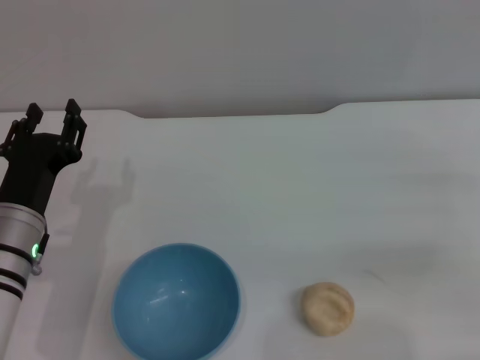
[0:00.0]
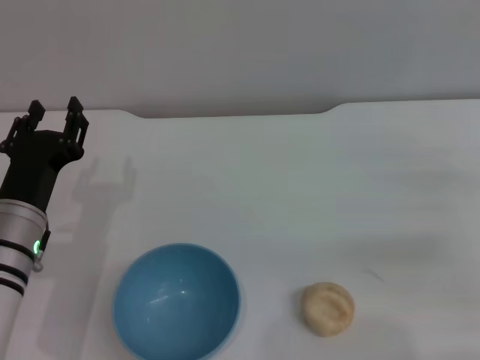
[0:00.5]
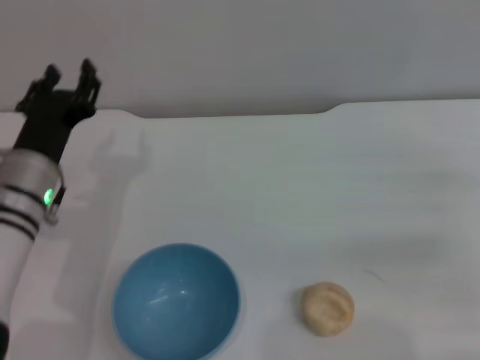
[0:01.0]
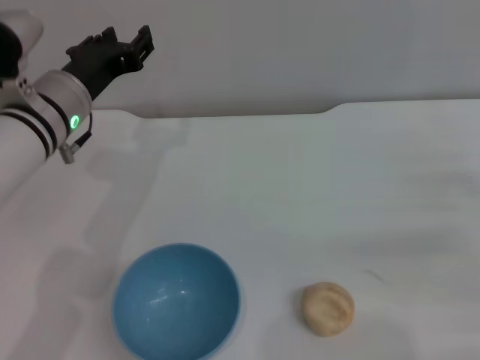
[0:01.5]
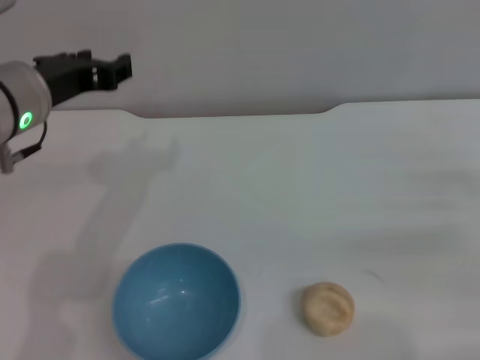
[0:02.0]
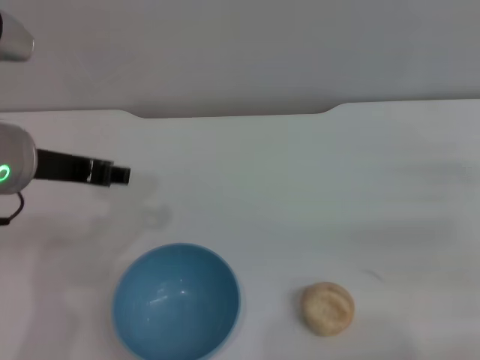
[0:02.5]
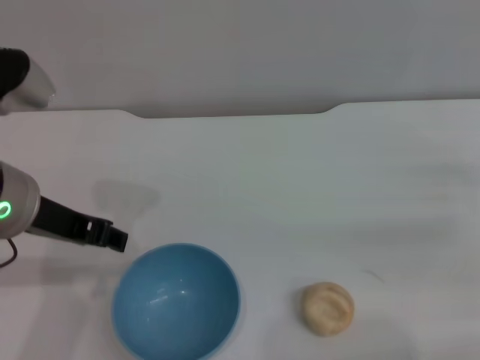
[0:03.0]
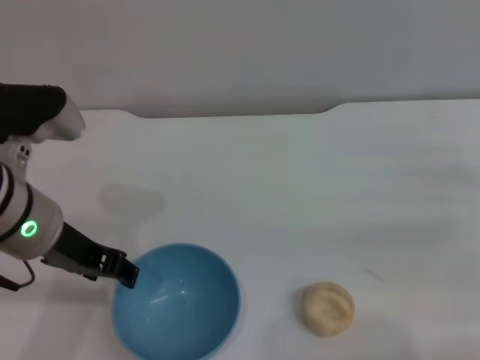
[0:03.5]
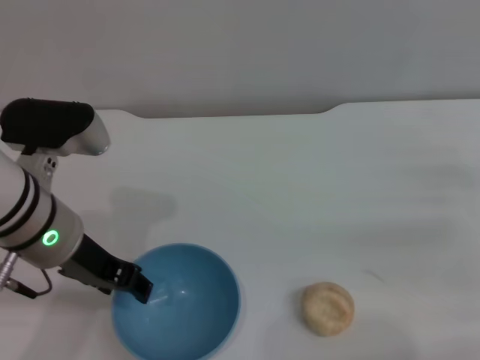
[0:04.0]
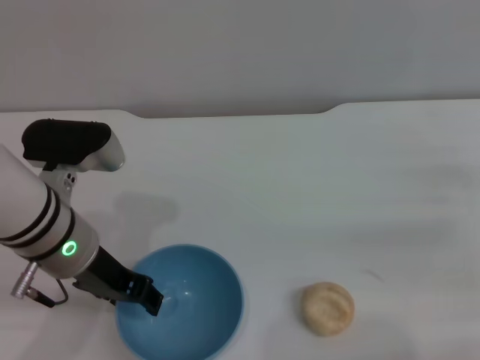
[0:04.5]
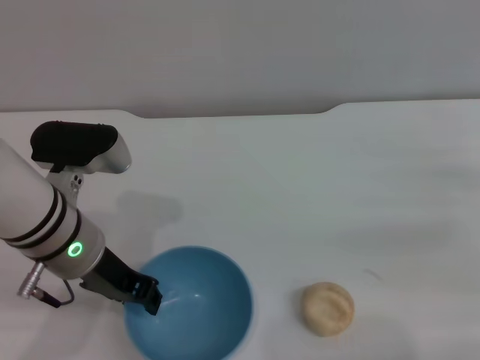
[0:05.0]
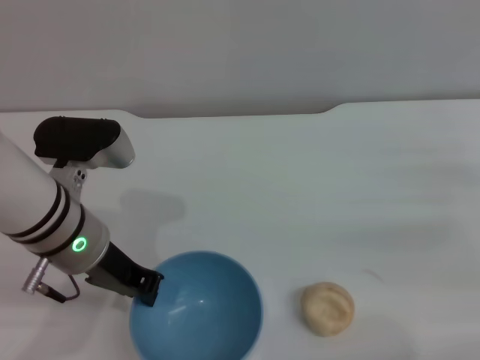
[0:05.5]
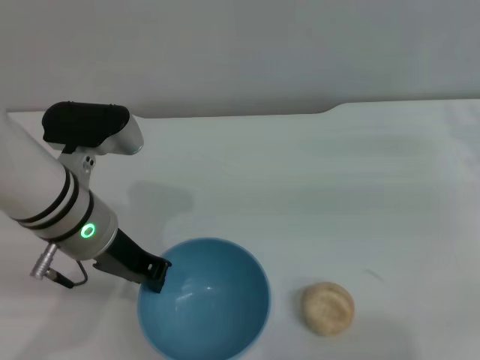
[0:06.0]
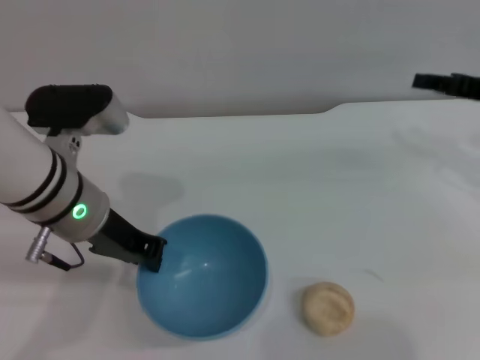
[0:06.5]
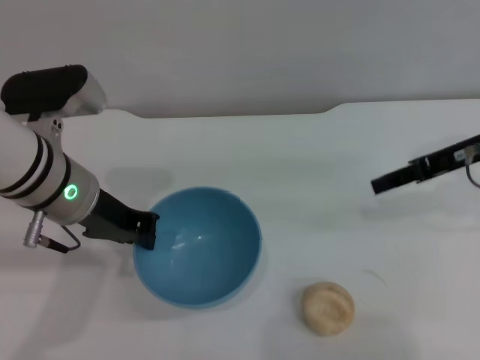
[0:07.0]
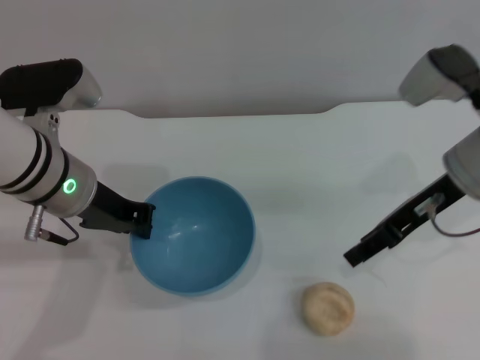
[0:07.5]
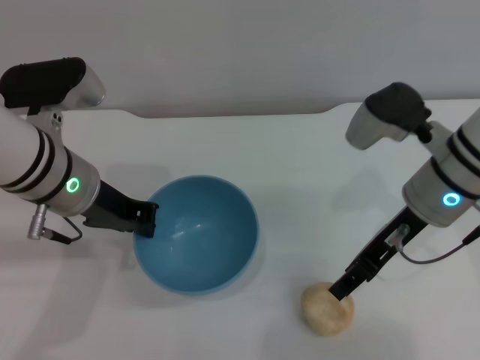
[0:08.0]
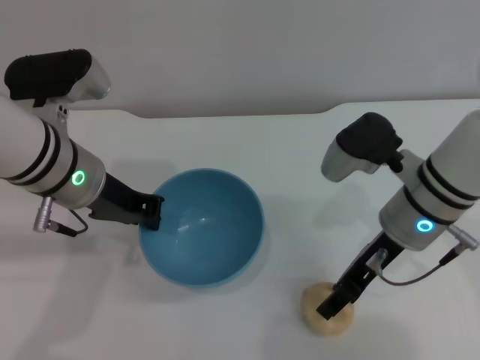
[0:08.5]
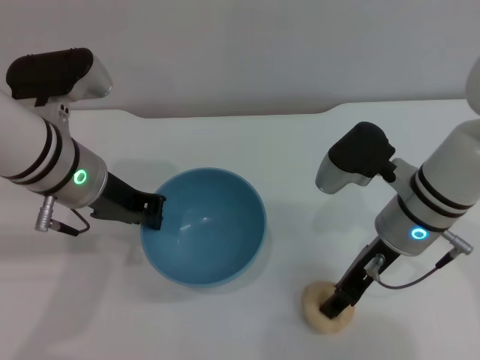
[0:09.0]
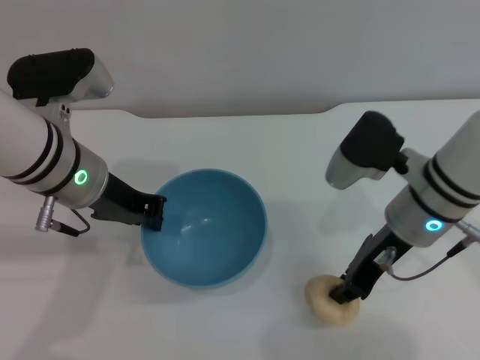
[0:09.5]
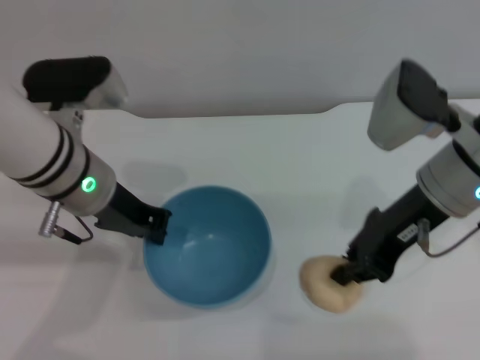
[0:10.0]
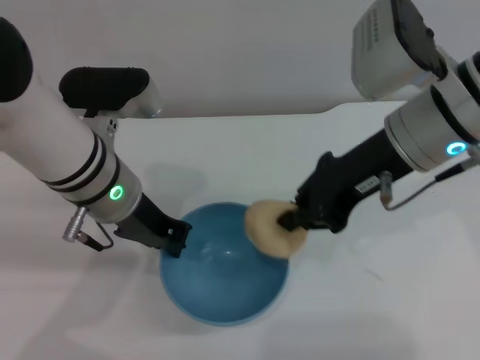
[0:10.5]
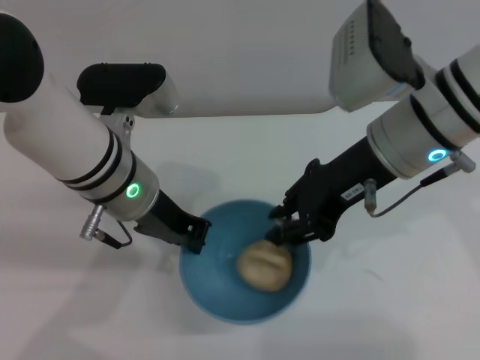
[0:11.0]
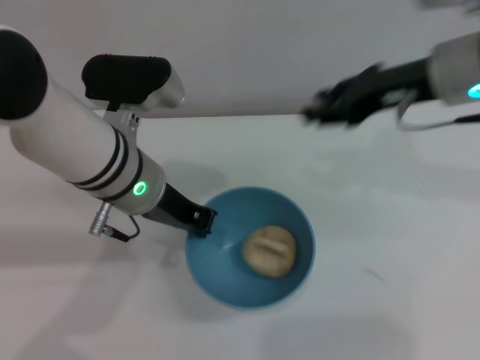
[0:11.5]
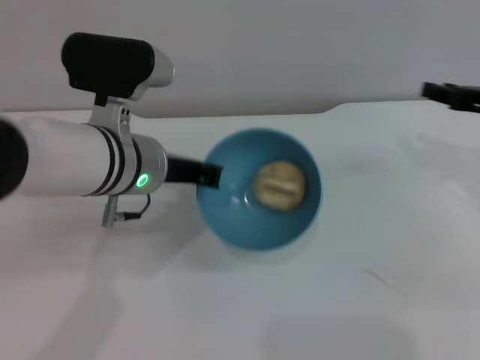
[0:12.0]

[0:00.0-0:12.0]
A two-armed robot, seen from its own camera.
Task of the whole recording: put the egg yolk pastry into the blue bowl and pour it out repeatedly.
Step, 0:00.0 to 0:07.0: Pick up the bowl with the left gripper.
Step, 0:08.0 to 0:09.5: Pick up the egg yolk pastry with the right gripper.
0:00.0 to 0:02.0: The left gripper moves upward, about 15 cm.
0:02.0 to 0:04.0: The left gripper moves some 5 cm.
0:04.0 to 0:06.0: The left gripper closes up; the right gripper shifts by roughly 5 cm.
0:06.0 to 0:08.0: The right gripper moves to the left, about 15 cm.
0:08.0 to 0:10.0: The right gripper closes up.
0:10.0 to 0:12.0: The right gripper heads to the right, covering about 15 cm, and opens.

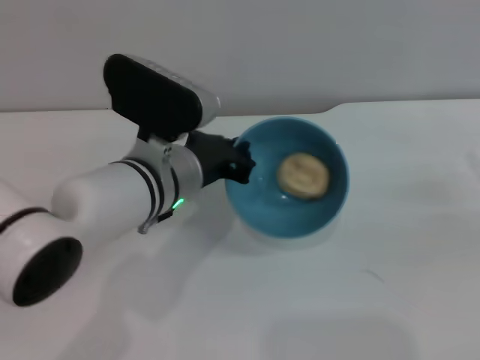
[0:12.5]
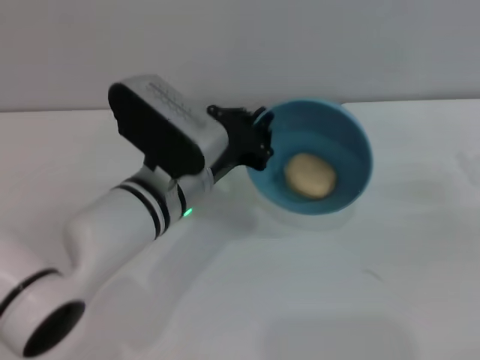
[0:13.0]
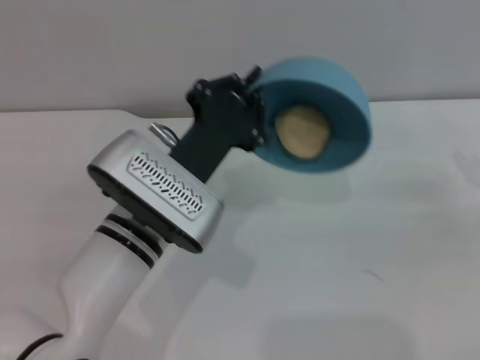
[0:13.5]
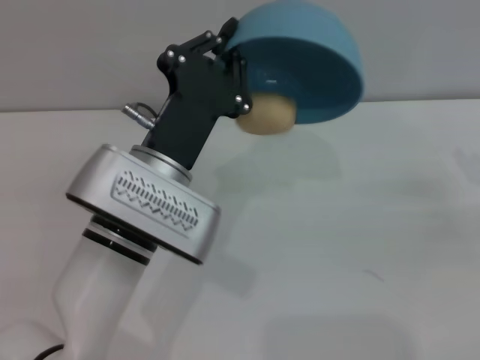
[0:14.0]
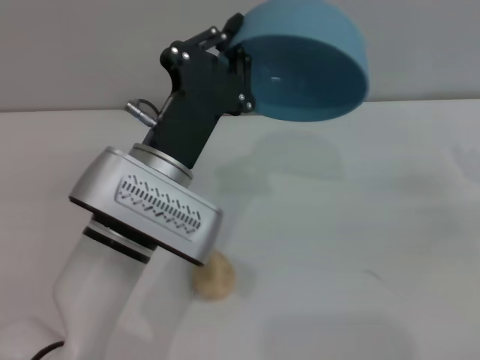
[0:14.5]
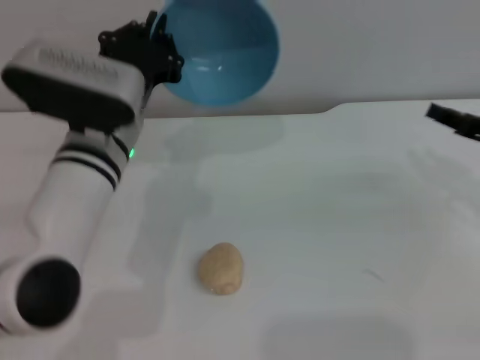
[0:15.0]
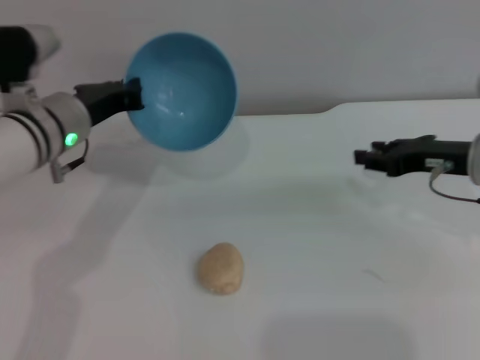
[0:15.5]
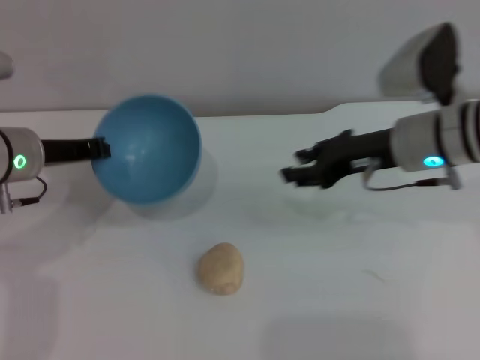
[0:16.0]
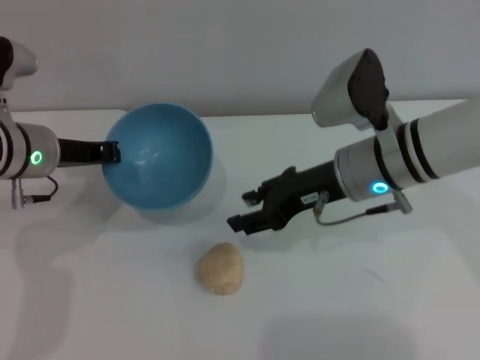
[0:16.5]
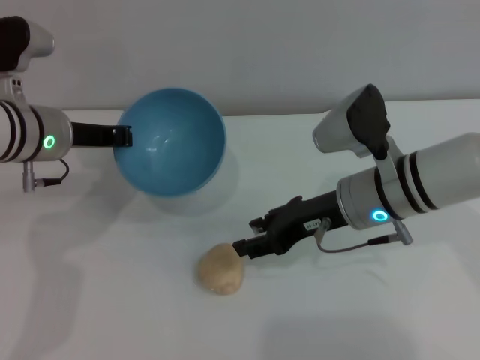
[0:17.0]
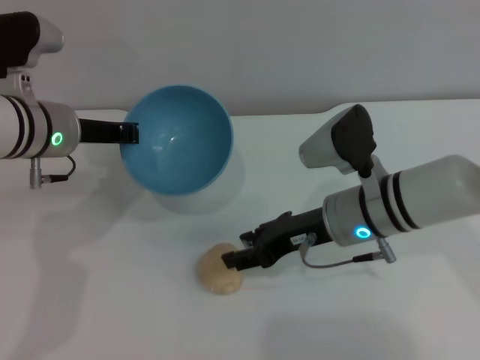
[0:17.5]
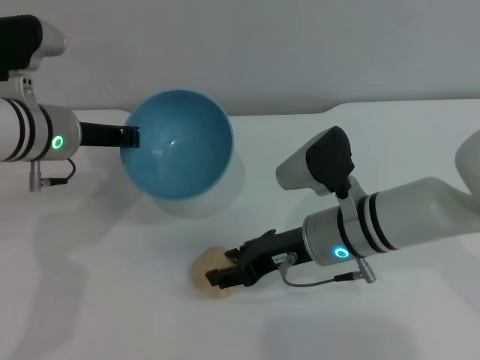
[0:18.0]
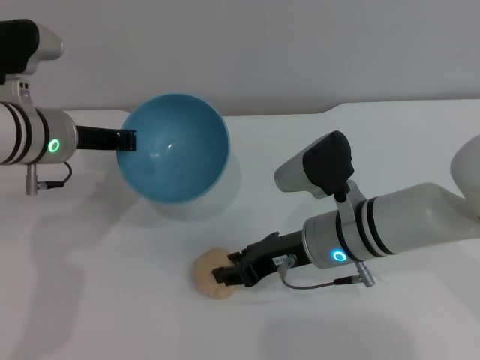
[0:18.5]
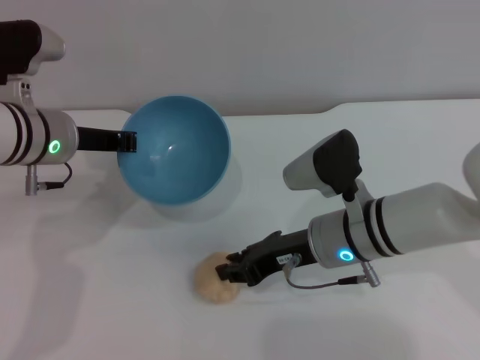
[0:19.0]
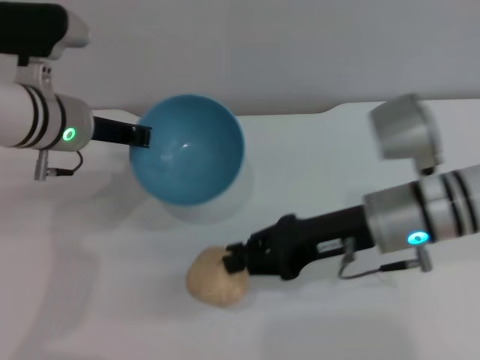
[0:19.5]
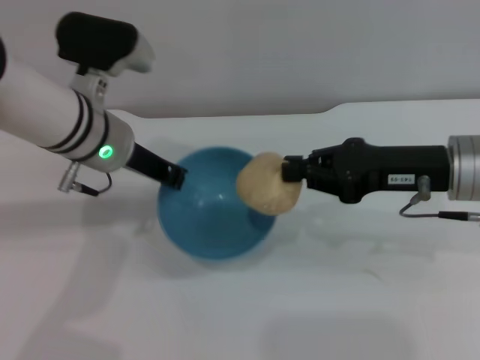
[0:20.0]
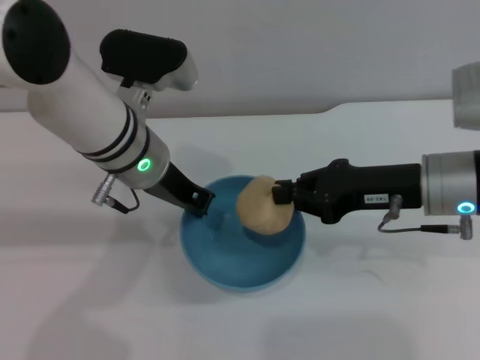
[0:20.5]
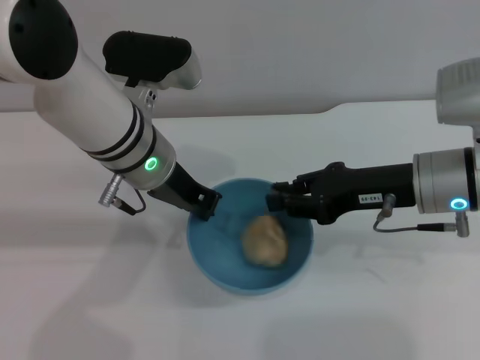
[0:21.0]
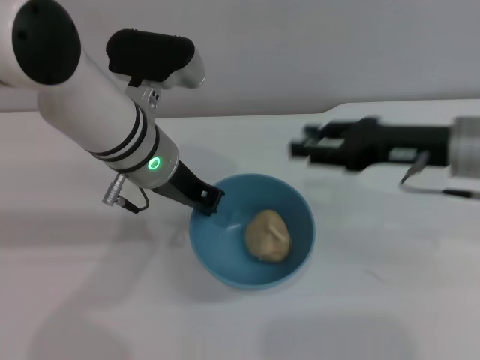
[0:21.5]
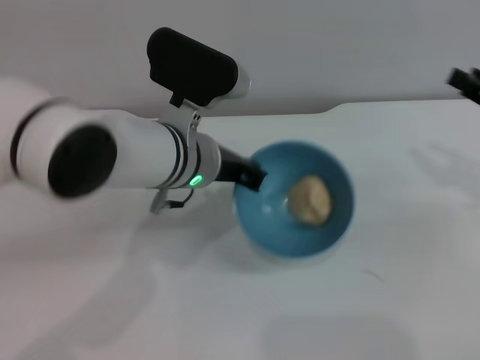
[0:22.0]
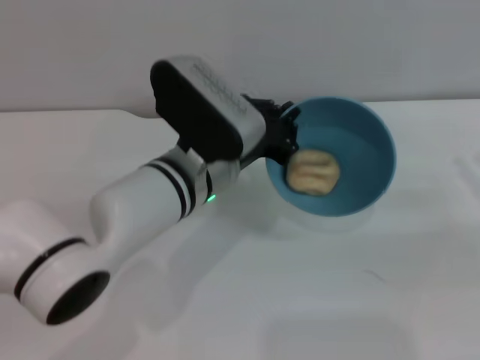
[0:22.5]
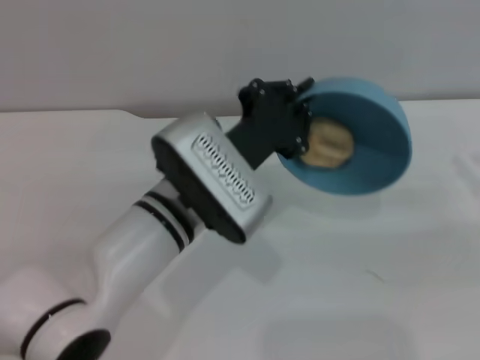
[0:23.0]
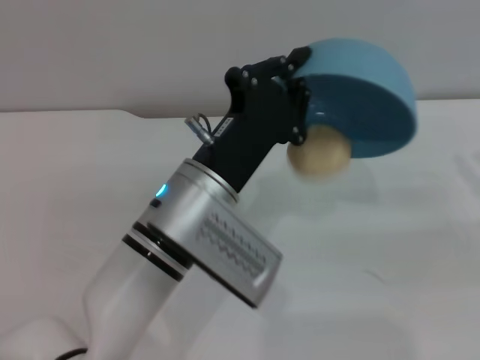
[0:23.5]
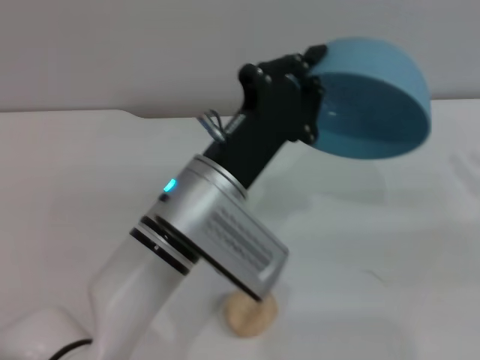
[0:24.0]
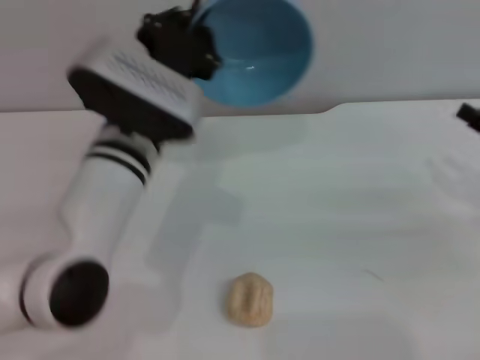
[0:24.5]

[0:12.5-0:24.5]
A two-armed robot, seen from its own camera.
Task of the whole recording: put the egg yolk pastry into the blue bowl and pour it out repeatedly.
Step, 0:12.5 to 0:14.0: Pour the egg yolk pastry out of bowl.
Step, 0:14.5 to 0:19.5: Pick up the egg yolk pastry with the right gripper.
Step, 0:20.0 to 0:21.5: Place the egg yolk pastry into the bowl.
Step, 0:22.0 to 0:24.0: Pour the egg yolk pastry out of bowl.
0:14.5 to 0:16.5: The left gripper shifts roughly 15 cm to the left and forward; the right gripper is displaced to the left by about 25 cm.
0:16.5 to 0:18.5: The right gripper goes about 5 cm downward.
0:18.5 to 0:20.5: The left gripper heads to the right, covering roughly 10 cm. The right gripper heads to the right and upward, covering about 10 cm, and closes.
0:20.5 to 0:22.5: The left gripper travels to the right by some 5 cm, while the right gripper heads to the right, covering about 20 cm, and opens its fingers.
0:22.5 to 0:24.5: The left gripper reaches about 5 cm backward, then returns.

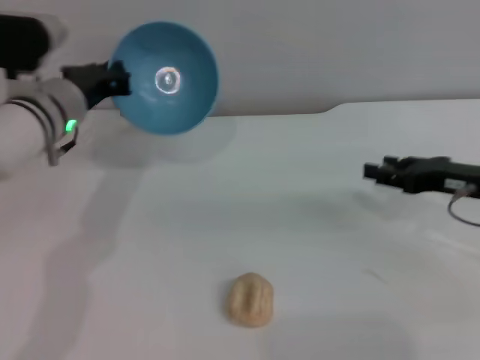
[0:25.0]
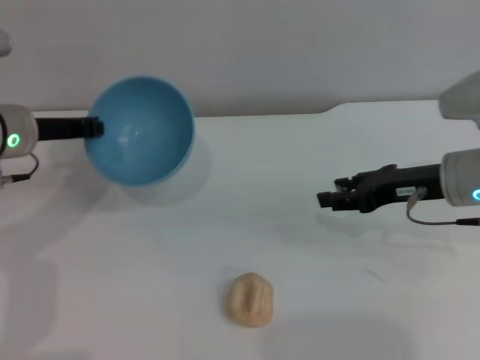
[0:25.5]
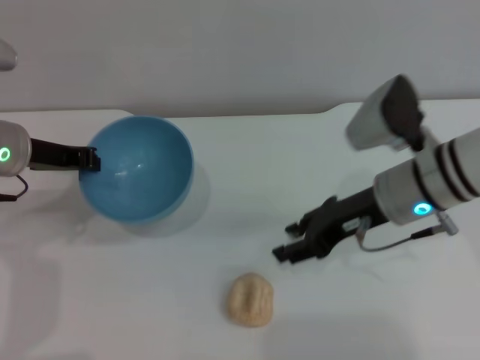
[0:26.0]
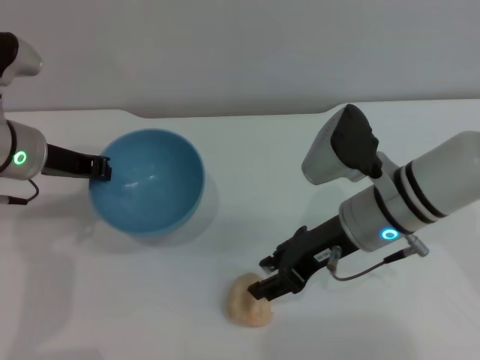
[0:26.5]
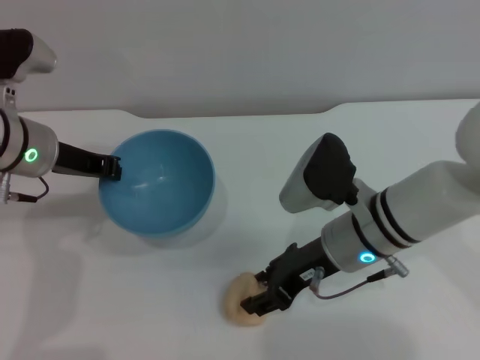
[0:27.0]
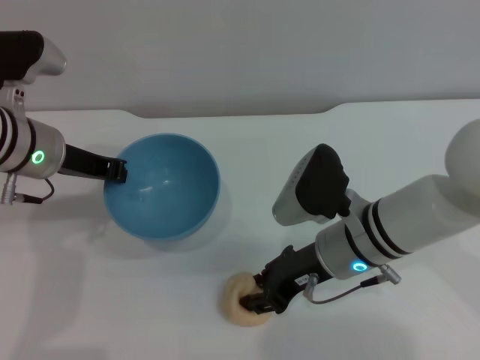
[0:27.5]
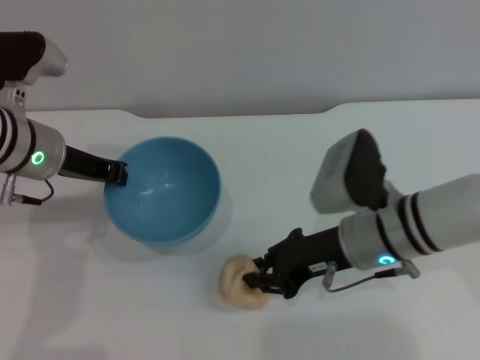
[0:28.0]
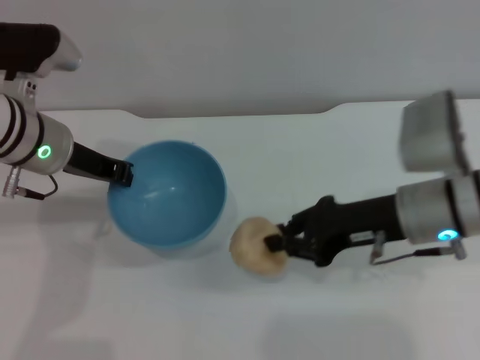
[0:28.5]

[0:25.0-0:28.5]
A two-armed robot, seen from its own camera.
Task of the whole recording: put the egg yolk pastry into the blue bowl and pour it out repeatedly.
Step, 0:25.0 to 0:28.0: Pick up the egg yolk pastry with the right gripper.
0:25.0 to 0:27.0: The right gripper goes roughly 20 cm to the left.
0:27.0 to 0:28.5: The right gripper is displaced to the right by approximately 5 cm, and closes.
